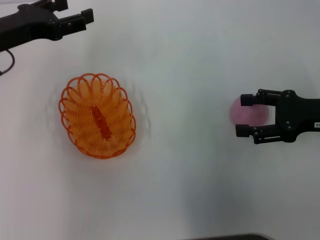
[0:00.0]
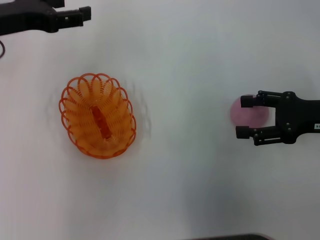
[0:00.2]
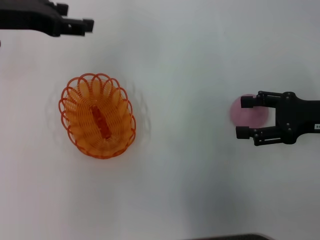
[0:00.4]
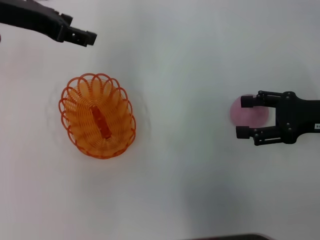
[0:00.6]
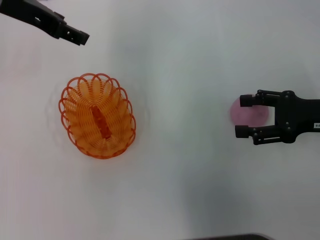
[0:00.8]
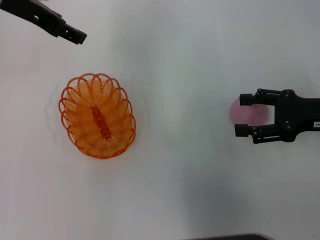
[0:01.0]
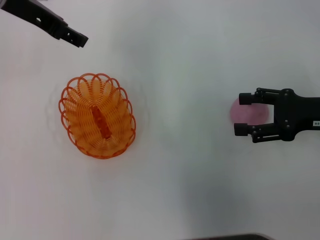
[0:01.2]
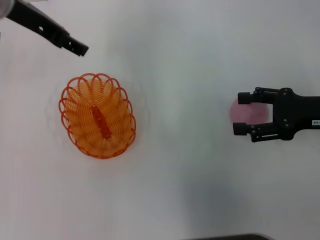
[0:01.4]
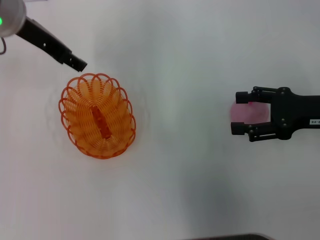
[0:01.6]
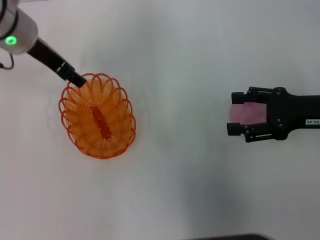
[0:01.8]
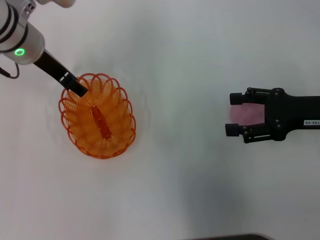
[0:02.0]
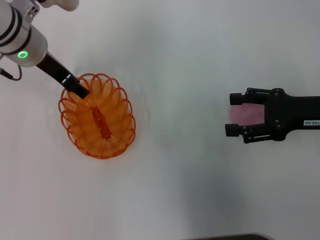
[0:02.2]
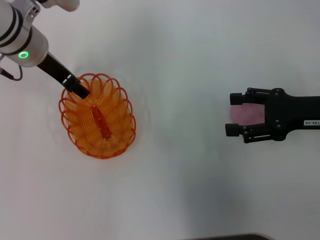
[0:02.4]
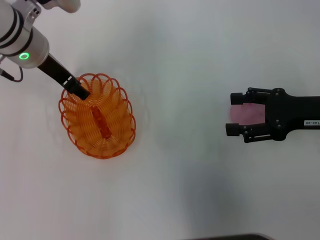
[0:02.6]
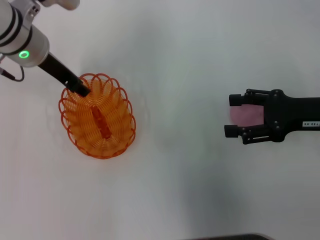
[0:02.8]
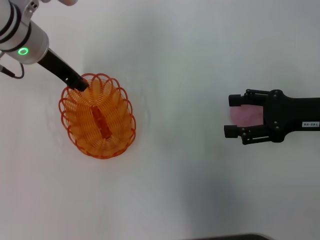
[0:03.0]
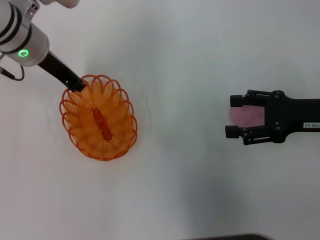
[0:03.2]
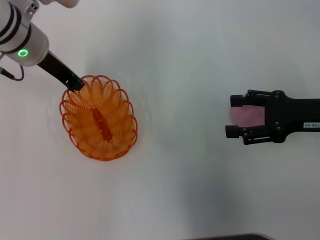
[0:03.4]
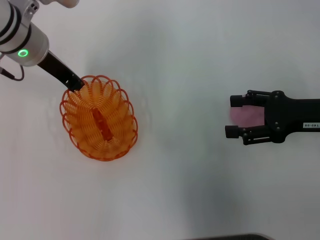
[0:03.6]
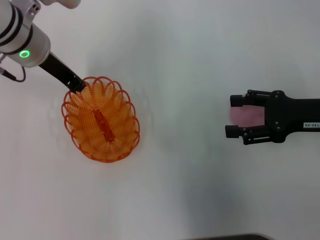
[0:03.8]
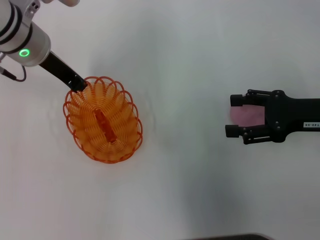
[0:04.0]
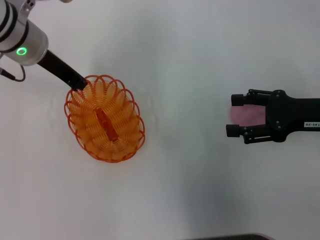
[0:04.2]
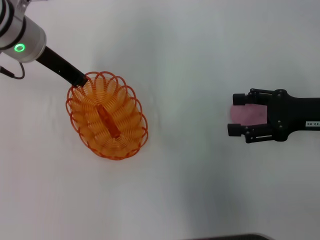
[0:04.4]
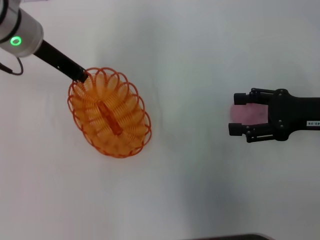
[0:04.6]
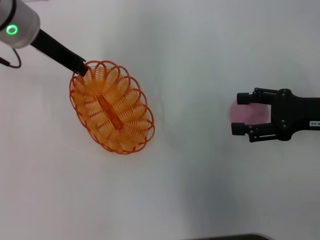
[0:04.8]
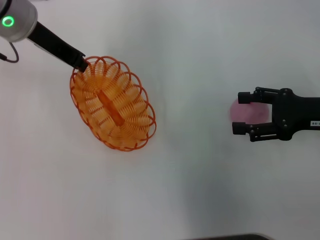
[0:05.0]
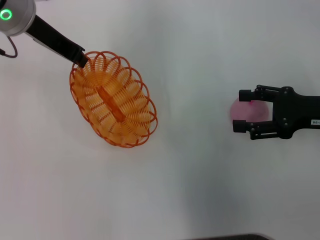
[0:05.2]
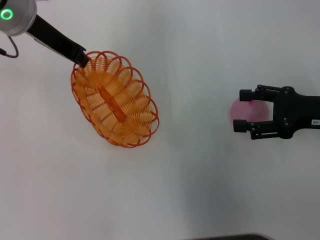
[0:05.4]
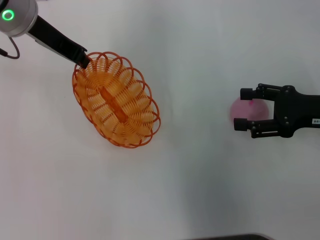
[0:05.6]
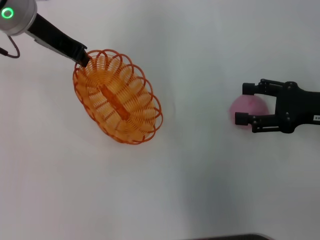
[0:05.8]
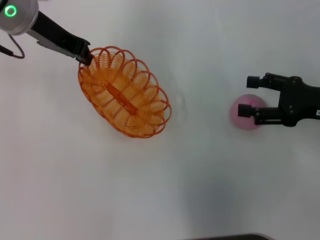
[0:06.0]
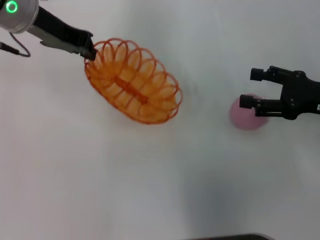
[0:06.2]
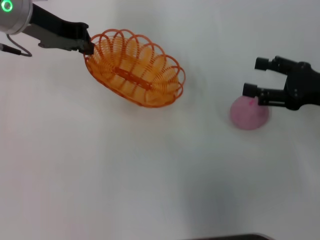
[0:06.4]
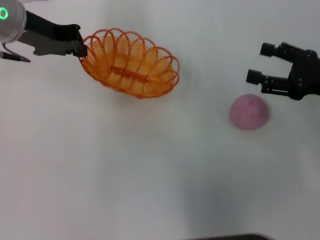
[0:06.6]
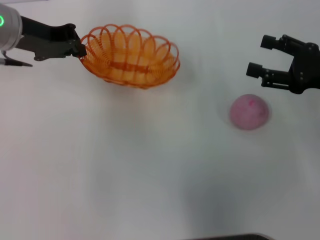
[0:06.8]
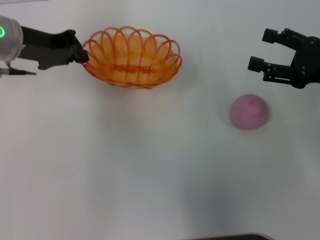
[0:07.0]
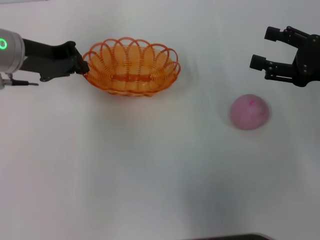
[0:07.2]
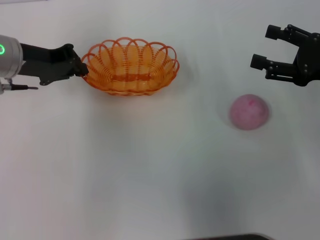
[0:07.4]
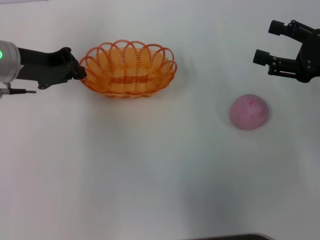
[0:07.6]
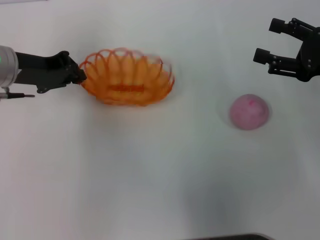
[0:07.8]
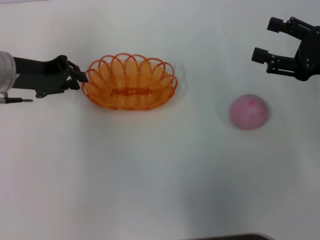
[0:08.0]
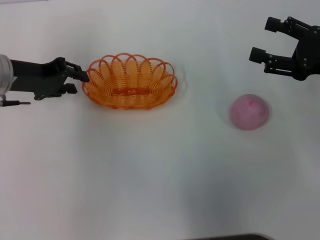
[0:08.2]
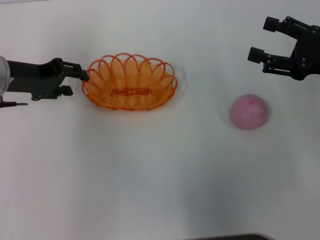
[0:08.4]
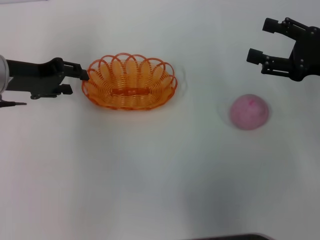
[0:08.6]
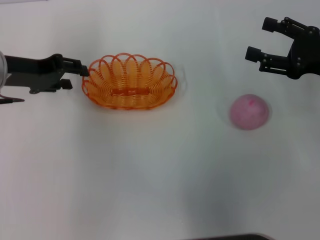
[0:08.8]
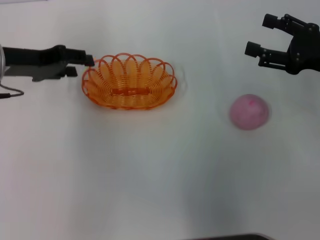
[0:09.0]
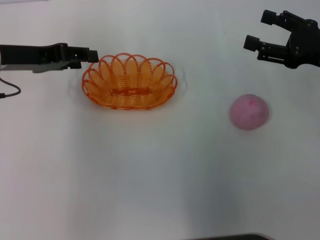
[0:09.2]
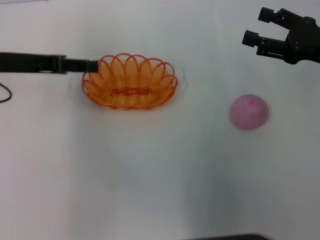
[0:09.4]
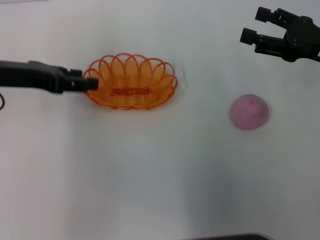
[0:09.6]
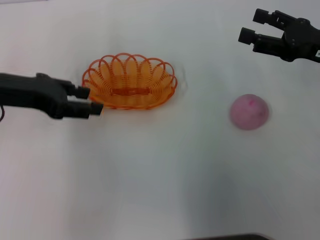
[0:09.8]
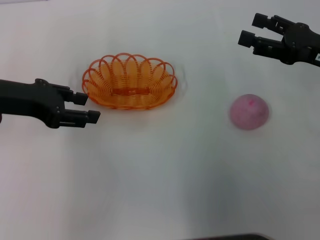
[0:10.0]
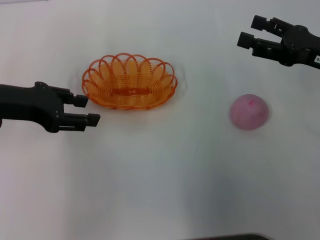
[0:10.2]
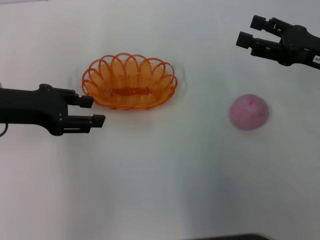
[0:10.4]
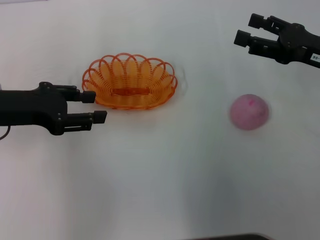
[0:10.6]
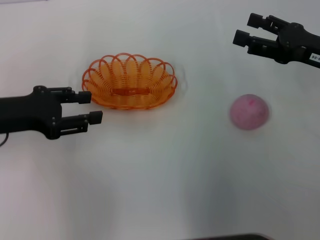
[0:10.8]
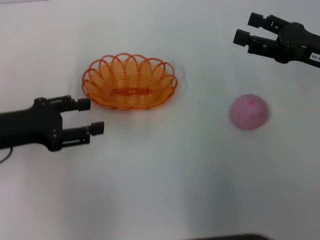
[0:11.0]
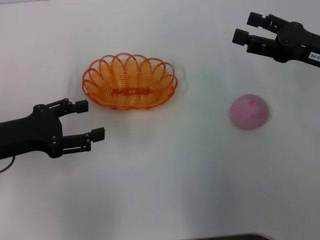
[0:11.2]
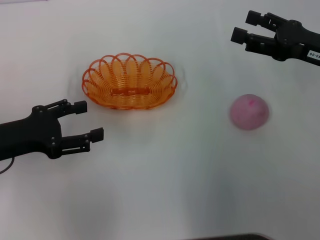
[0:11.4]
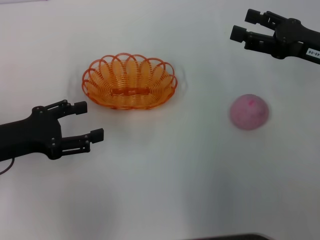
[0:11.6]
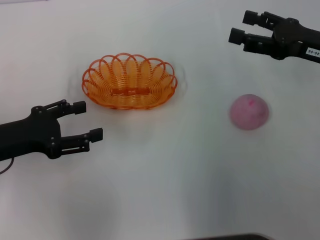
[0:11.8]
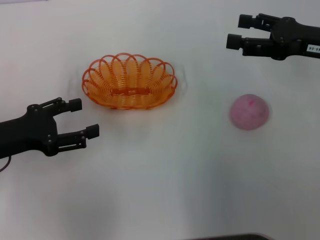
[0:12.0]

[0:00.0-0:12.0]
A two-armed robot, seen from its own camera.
Step, 0:00.0 to 0:04.6: Pick up the basket with the left gripper.
Step, 0:05.0 to 0:09.0: Place the basket in the center of view with the left gripper.
0:00.0 to 0:01.6: The left gripper heads to the right, upward and forward, covering some 10 cm.
0:01.6 to 0:03.0: The left gripper shifts approximately 5 cm downward.
0:03.0 to 0:04.4: The left gripper closes its fingers.
0:04.4 to 0:06.0: The left gripper goes approximately 5 cm upward.
0:06.0 to 0:07.6: The left gripper moves downward and to the left, some 10 cm.
0:07.6 to 0:09.0: The left gripper opens up.
0:09.0 to 0:10.4: The left gripper heads backward, covering about 5 cm.
0:10.4 to 0:12.0: The left gripper goes approximately 5 cm downward.

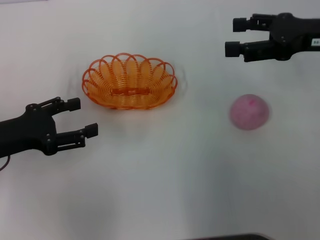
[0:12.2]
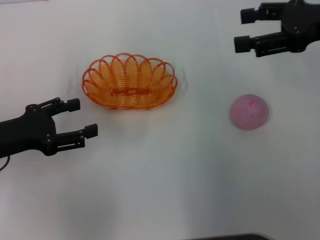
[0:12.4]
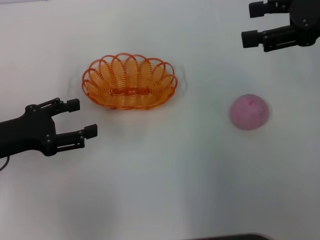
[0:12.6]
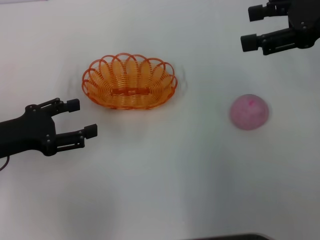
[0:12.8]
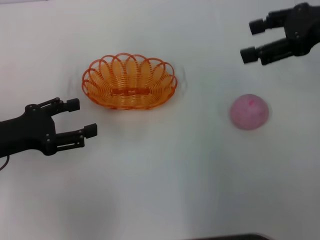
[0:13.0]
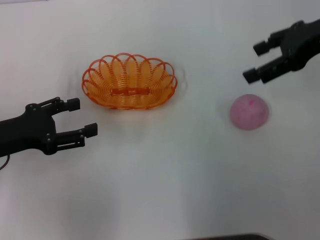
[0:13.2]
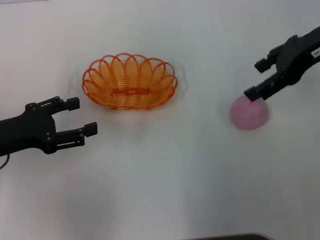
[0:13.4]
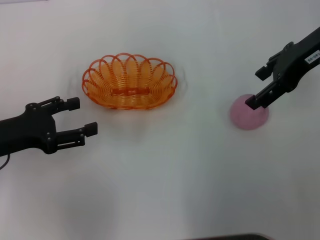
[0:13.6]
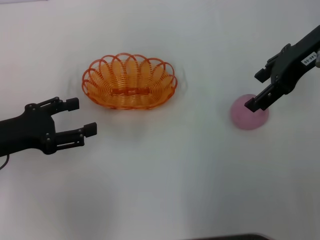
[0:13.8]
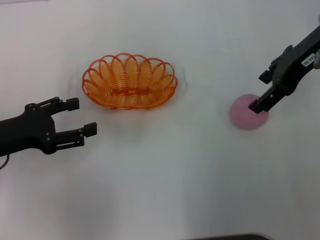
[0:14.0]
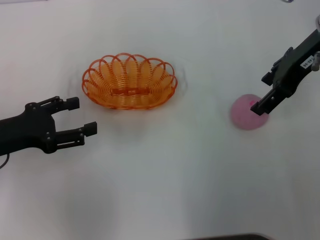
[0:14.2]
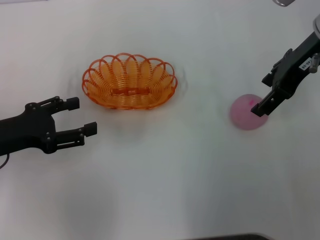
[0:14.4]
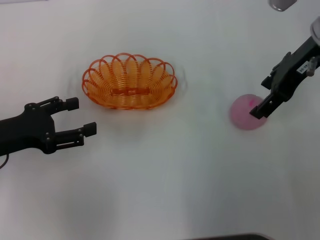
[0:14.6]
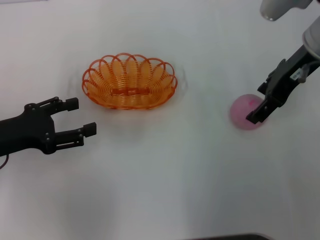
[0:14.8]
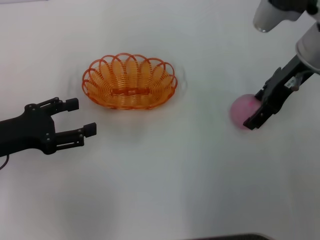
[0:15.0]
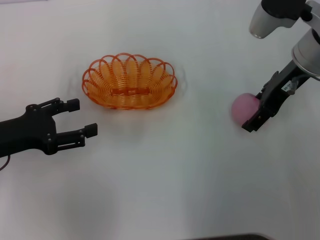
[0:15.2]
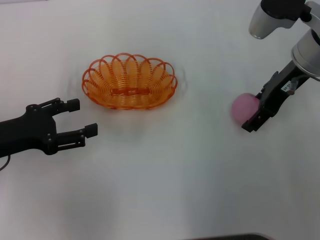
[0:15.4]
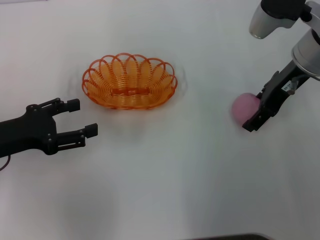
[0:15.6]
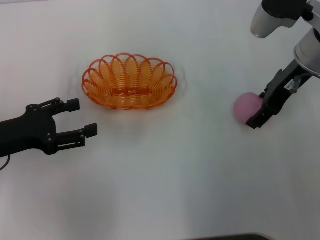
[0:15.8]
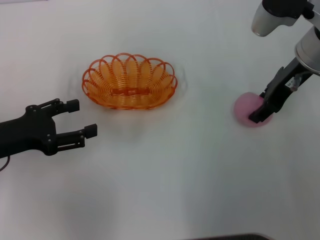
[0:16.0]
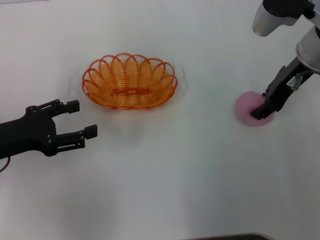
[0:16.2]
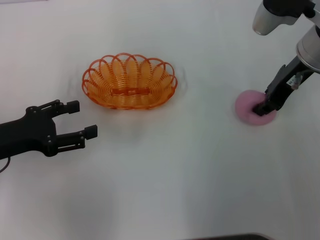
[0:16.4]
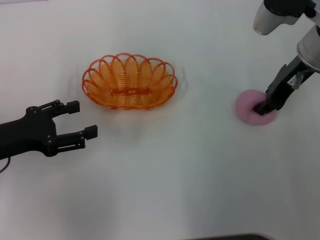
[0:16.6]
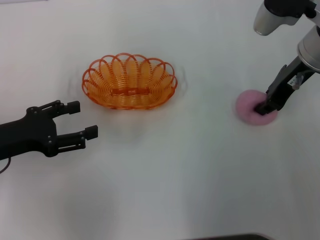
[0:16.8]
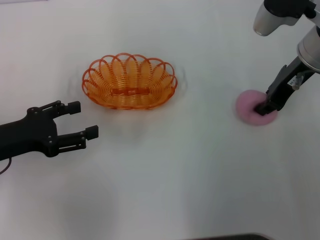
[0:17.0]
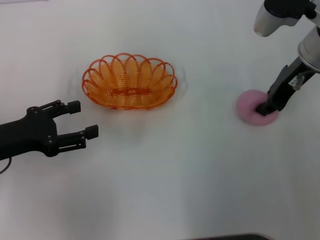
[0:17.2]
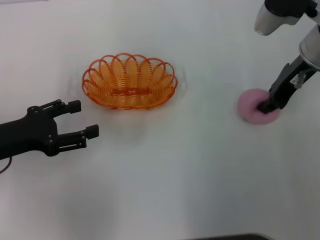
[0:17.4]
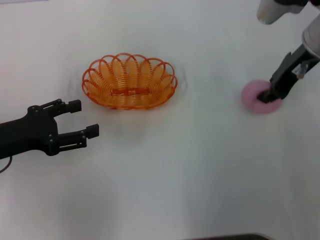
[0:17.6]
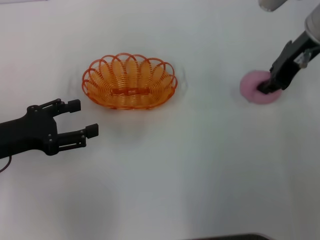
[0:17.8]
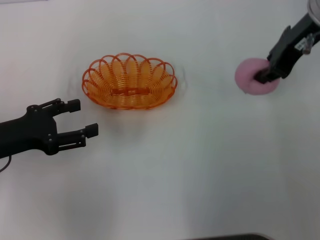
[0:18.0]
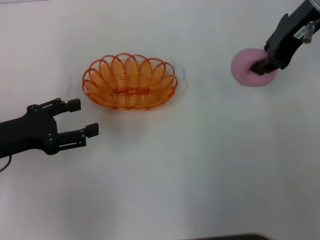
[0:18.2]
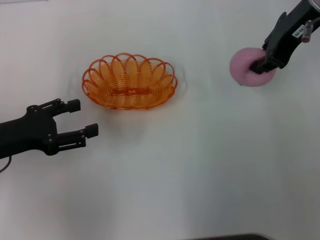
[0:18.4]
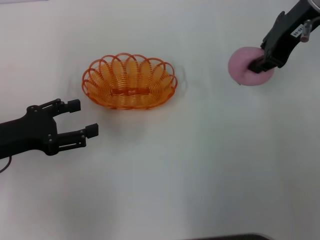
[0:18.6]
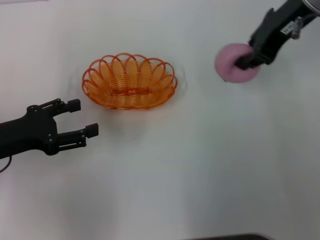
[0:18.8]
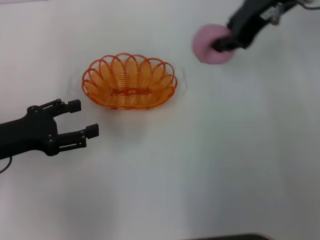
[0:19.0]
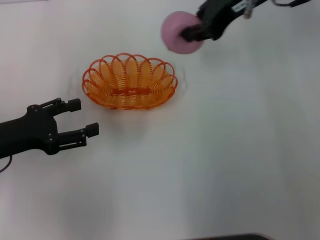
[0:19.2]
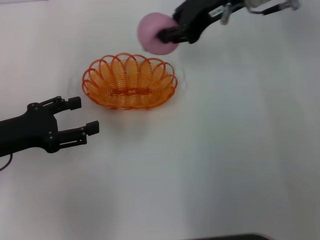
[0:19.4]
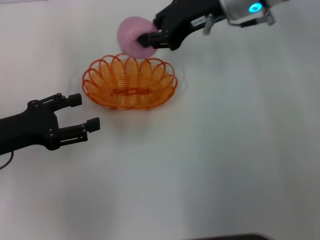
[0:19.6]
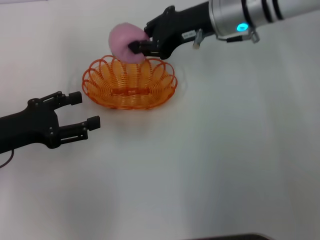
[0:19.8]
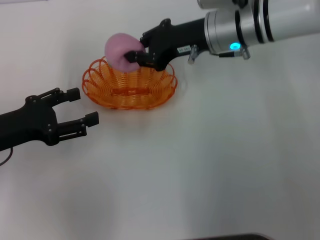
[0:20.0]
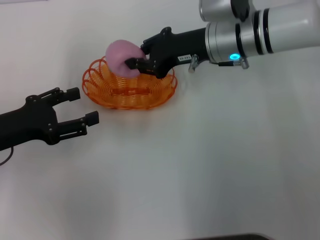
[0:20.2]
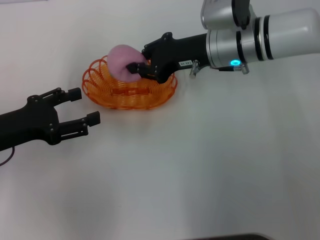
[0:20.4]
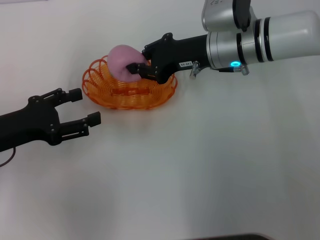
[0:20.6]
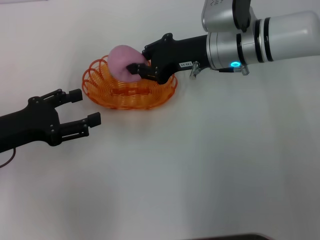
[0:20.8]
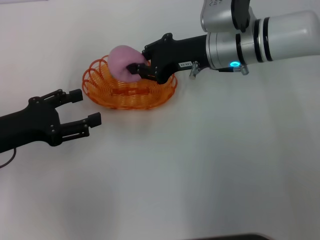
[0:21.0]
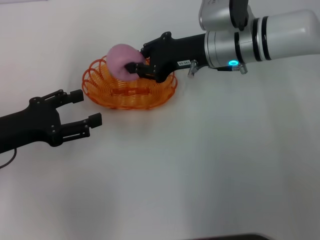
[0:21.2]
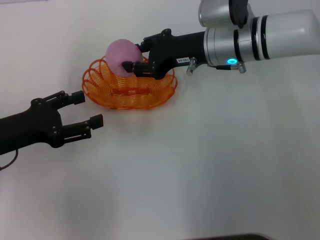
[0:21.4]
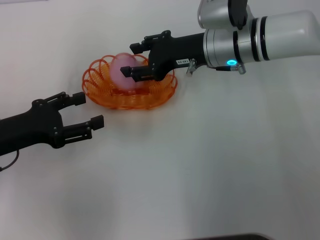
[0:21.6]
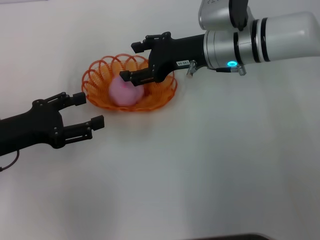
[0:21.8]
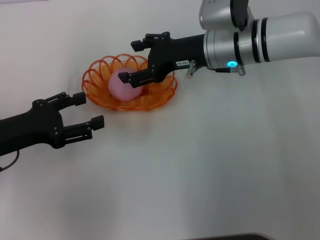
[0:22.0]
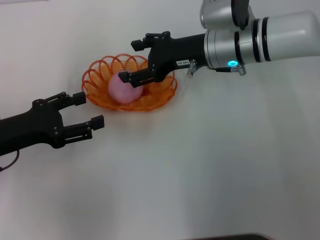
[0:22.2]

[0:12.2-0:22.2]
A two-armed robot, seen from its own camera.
Step, 0:12.2 to 0:18.0: Pick up the peach with the right gripper.
Step, 0:18.2 to 0:22.0: Place the peach into the basket with the right gripper.
0:12.2 to 0:13.6: The right gripper ends up about 5 cm from where it was.
0:13.6 to 0:15.0: The right gripper ends up roughly 5 cm from where it was.
0:15.0 to 0:16.4: The right gripper closes its fingers.
0:16.4 to 0:18.0: The right gripper moves upward, roughly 5 cm, and closes up.
0:18.0 to 0:19.4: The right gripper travels to the left by roughly 5 cm.
0:19.4 to 0:20.8: The right gripper heads downward, covering roughly 10 cm.
0:20.8 to 0:22.2: The right gripper opens.
